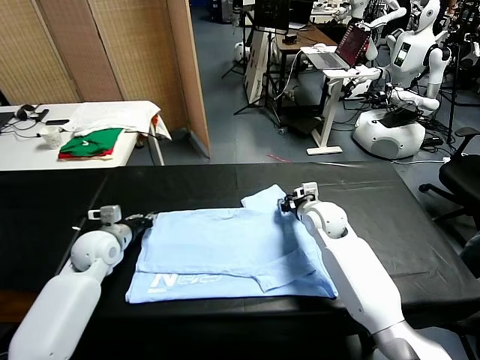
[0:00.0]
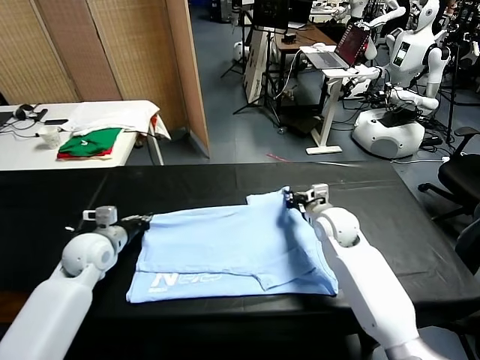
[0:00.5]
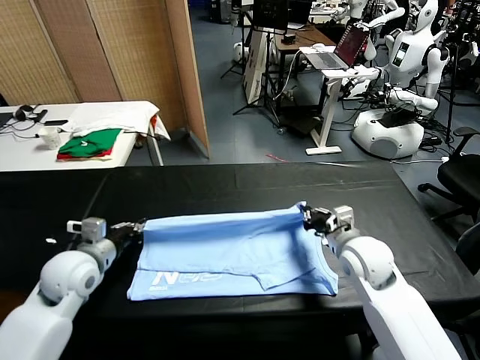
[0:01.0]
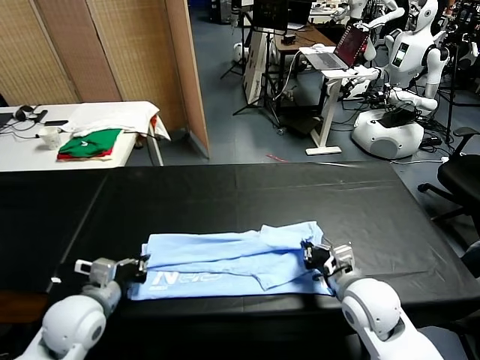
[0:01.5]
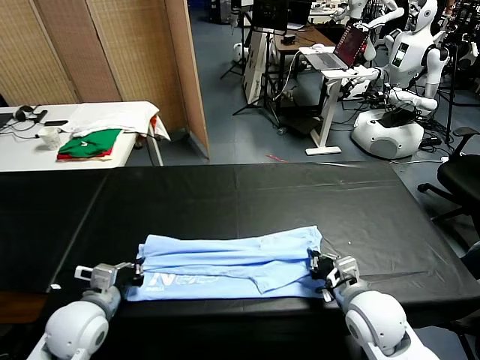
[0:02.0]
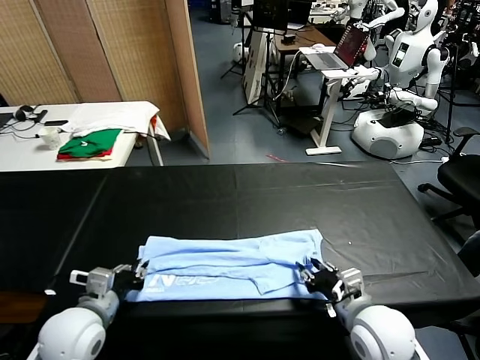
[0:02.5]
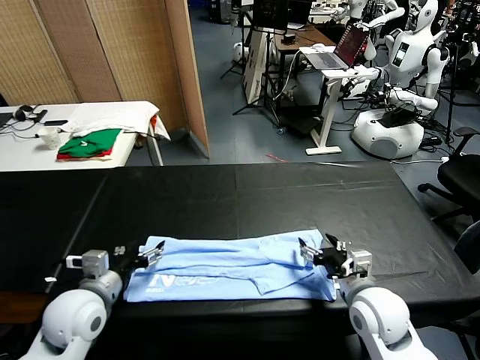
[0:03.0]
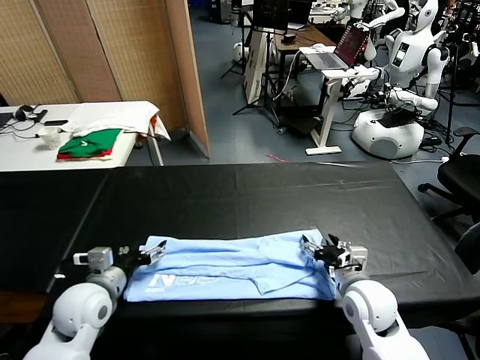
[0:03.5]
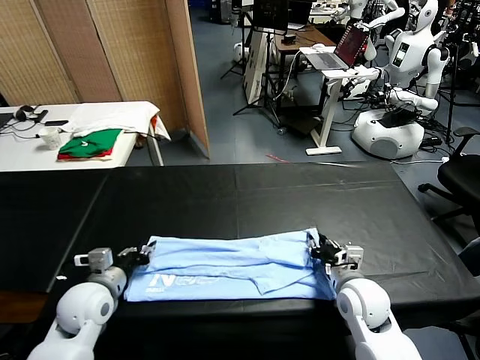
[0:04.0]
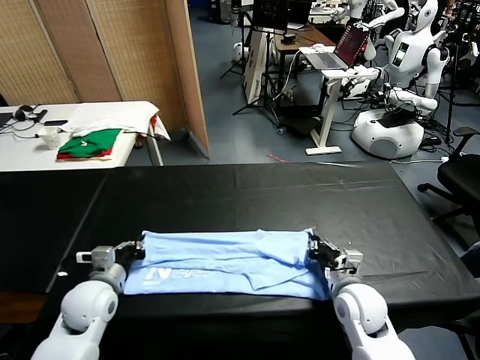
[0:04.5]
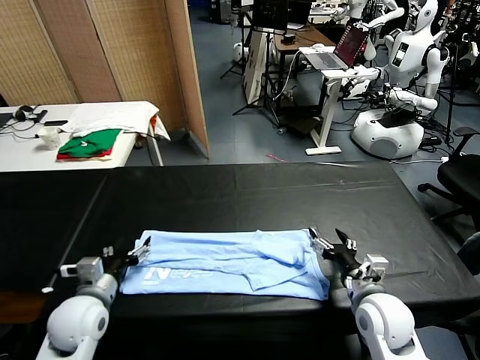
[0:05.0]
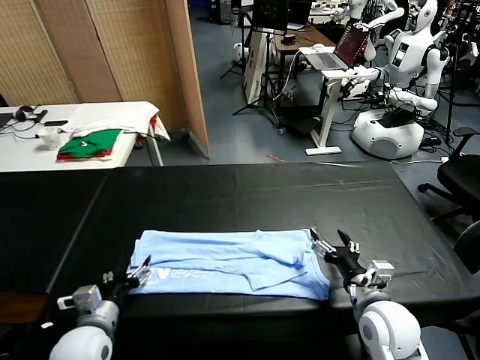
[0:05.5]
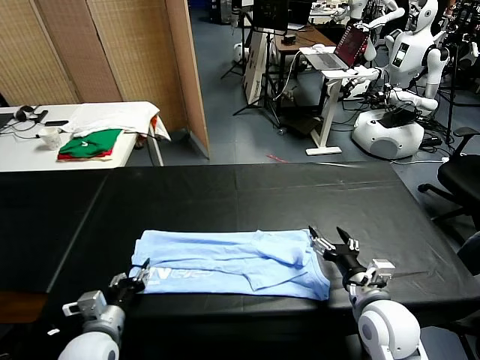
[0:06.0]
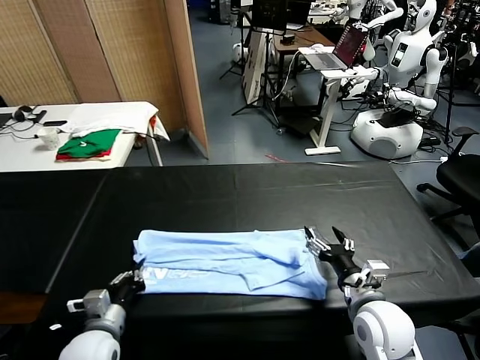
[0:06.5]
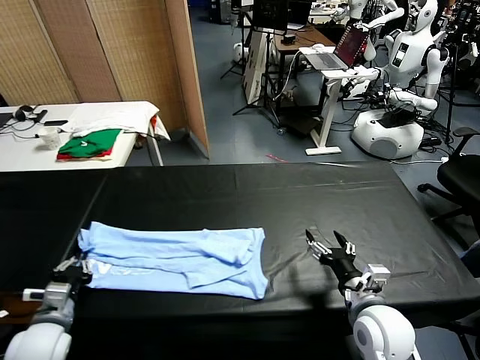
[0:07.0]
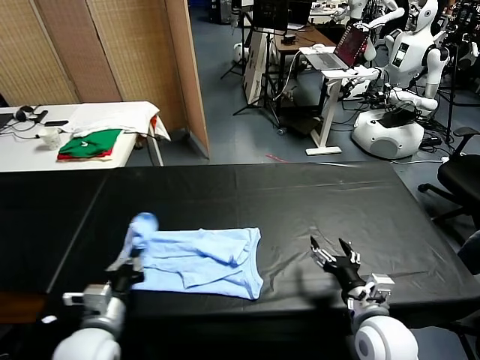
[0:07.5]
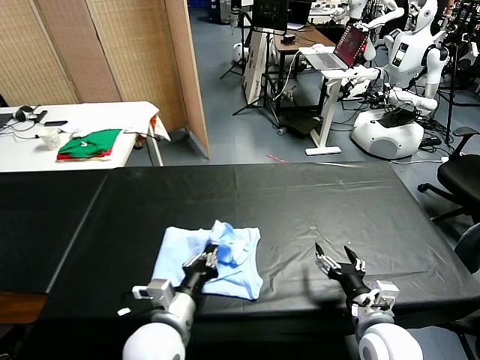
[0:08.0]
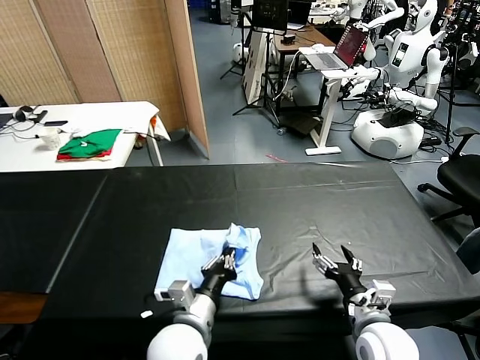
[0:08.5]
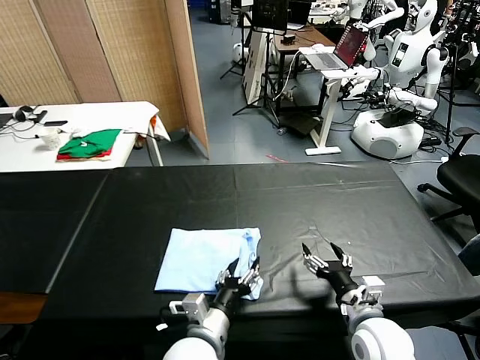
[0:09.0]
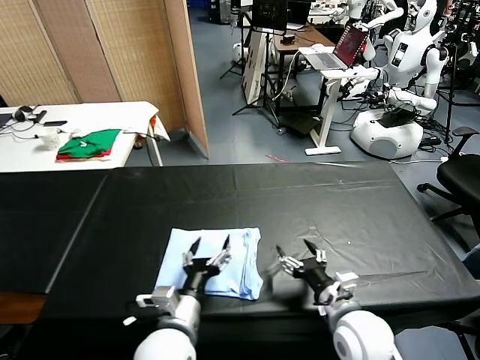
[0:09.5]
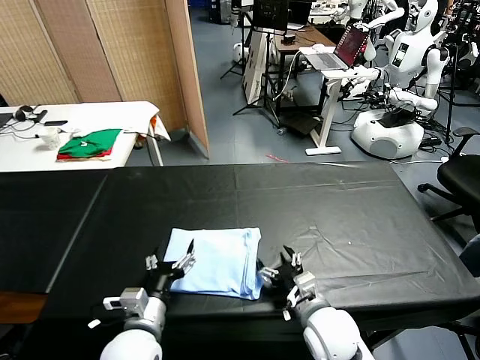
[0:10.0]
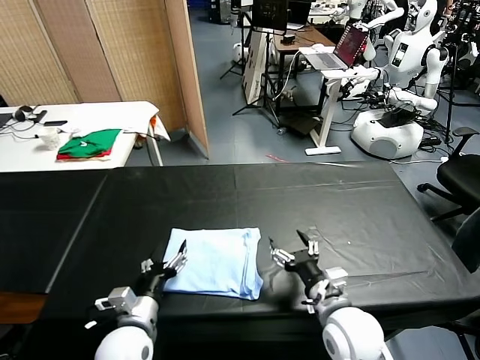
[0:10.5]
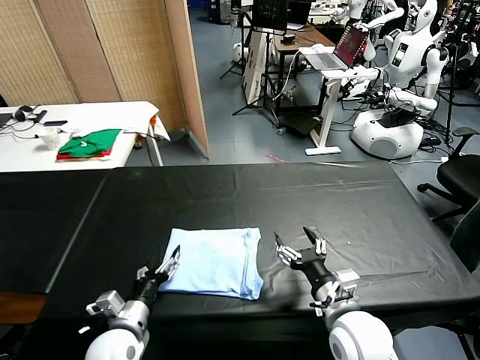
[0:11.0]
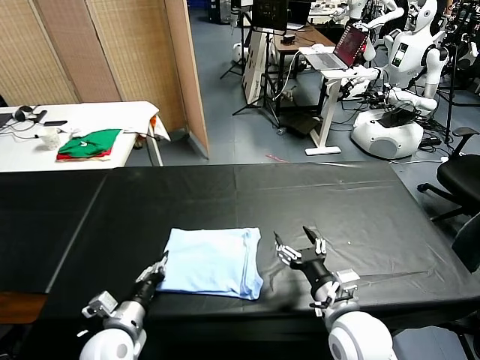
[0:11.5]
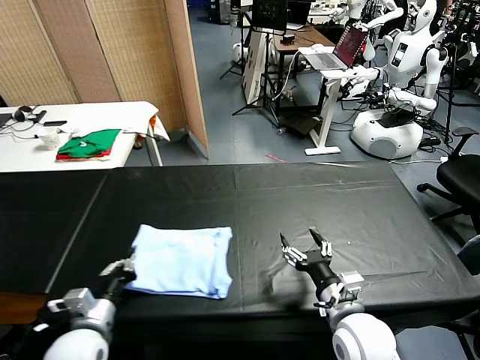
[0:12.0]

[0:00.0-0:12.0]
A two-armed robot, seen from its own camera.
Task of the whole recording: fold and organize the clothes.
Step, 0:00.5 to 0:02.5: use both grippers to drag the upper edge of the fabric backward and fold it over the lower edge.
Step, 0:03.0 to 0:06.0: use the left gripper to clamp the left edge of the fabric.
Step, 0:06.5 to 0:09.5: use the left gripper to drag the left edge of the fabric to the left and folds it over the right edge.
0:00.0 to 0:02.0: Both grippers move backward, approximately 20 cm.
0:02.0 to 0:04.0: The left gripper opens, then closes once more. The right gripper is displaced forward by about 5 cm, and opens, then closes again.
0:04.0 to 0:06.0: Both grippers travel together backward, approximately 5 cm. The right gripper opens its fingers, while the left gripper opens and closes again.
0:06.0 to 0:08.0: The left gripper moves to the right, about 15 cm, and closes its fingers.
0:08.0 to 0:10.0: The right gripper goes approximately 10 cm to the left. Meanwhile the left gripper changes place by some 5 cm, and opens.
0:10.0 to 0:12.0: The right gripper ends up roughly 5 cm from where it was; the left gripper goes approximately 10 cm to the left, and closes its fingers.

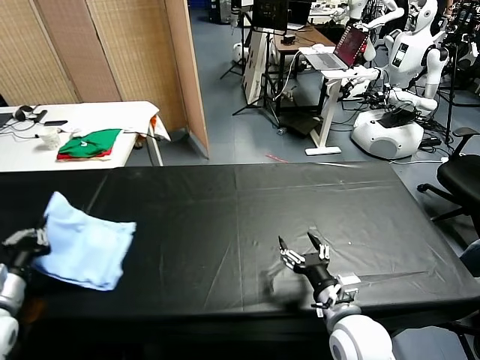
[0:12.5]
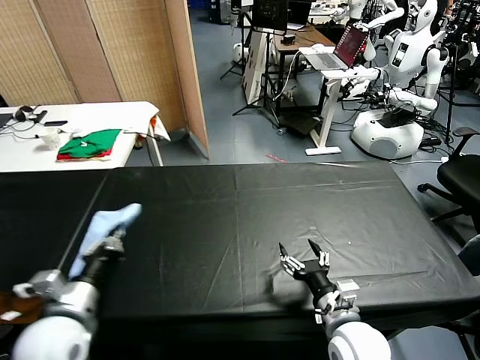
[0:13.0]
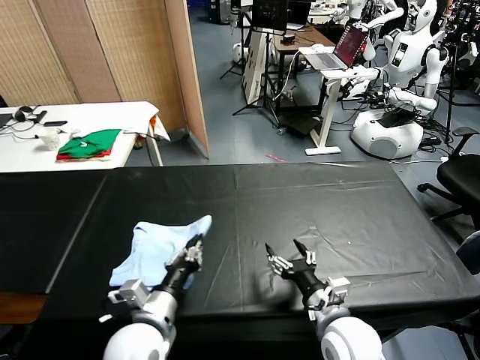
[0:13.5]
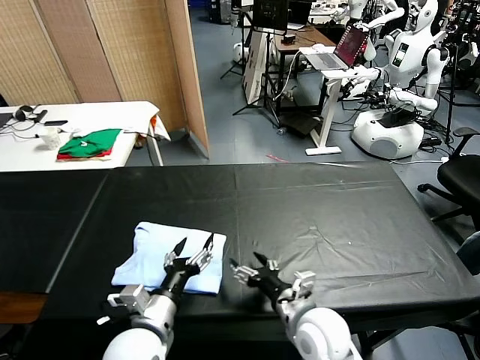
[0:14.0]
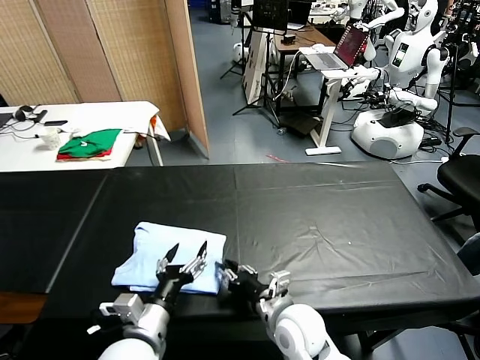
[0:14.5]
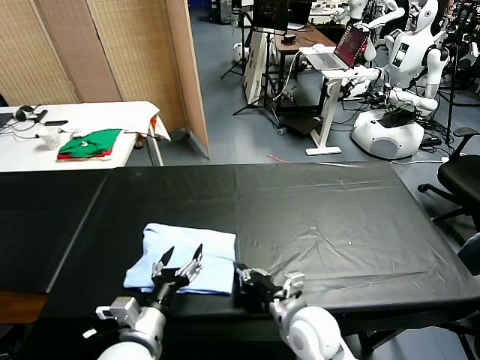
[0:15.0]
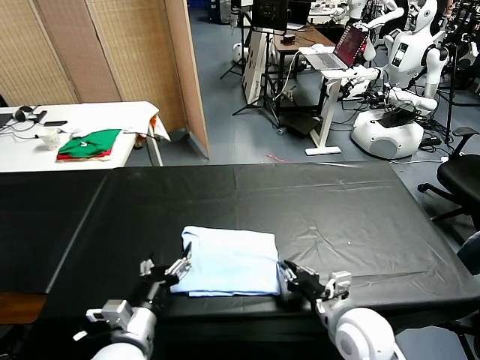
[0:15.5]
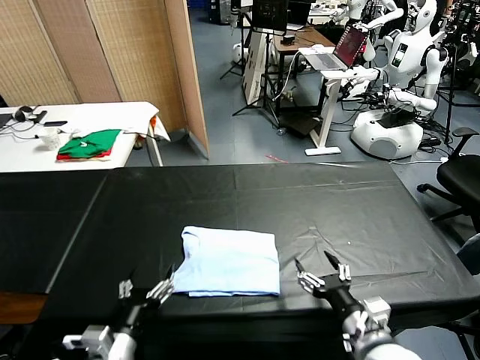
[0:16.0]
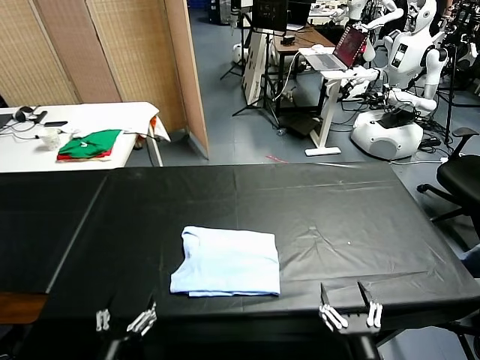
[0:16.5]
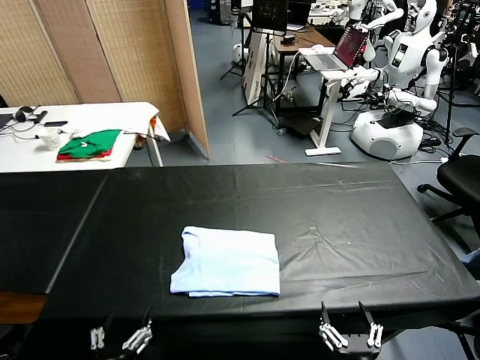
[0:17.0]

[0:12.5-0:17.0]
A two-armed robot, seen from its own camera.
Task of the whole recording: fold and organize the clothes.
Step, 0:14.0 to 0:15.5: Drag the clothes to the center of the table.
0:12.5 to 0:14.5: The right gripper goes approximately 10 cm to the left, and closes. The left gripper travels to the right by roughly 25 cm, and opens its fingers.
0:14.5 to 0:17.0: The right gripper goes some 25 cm backward and to the right, and opens its fingers; the left gripper heads backward and to the left, covering about 15 cm.

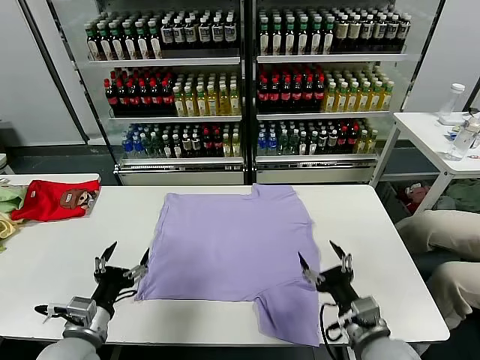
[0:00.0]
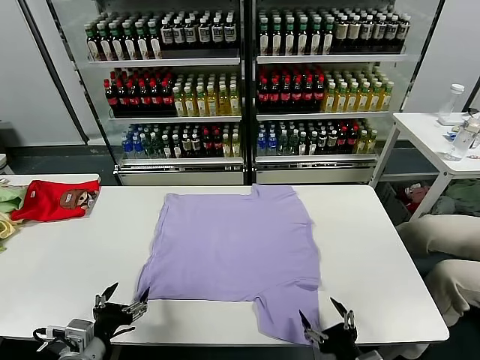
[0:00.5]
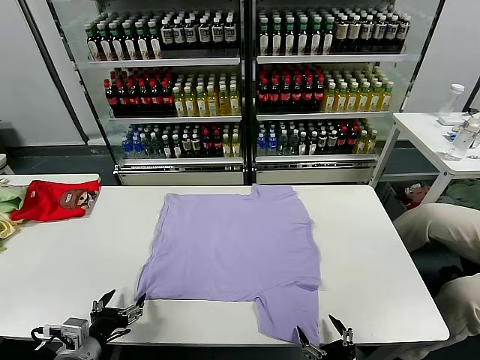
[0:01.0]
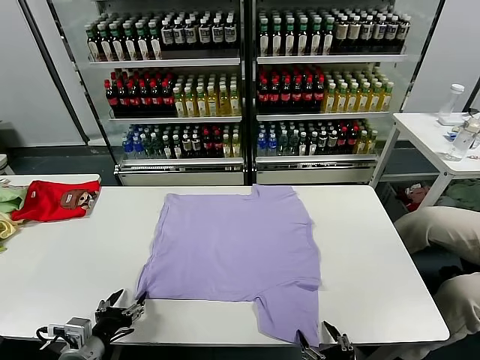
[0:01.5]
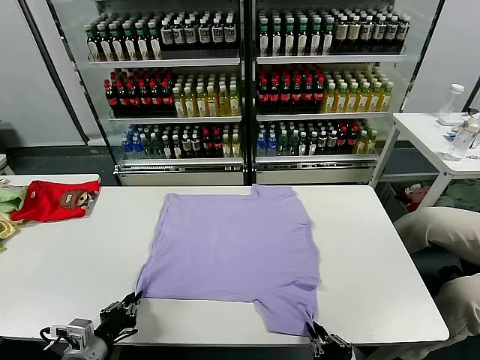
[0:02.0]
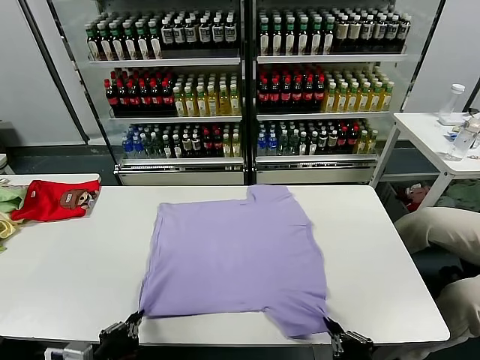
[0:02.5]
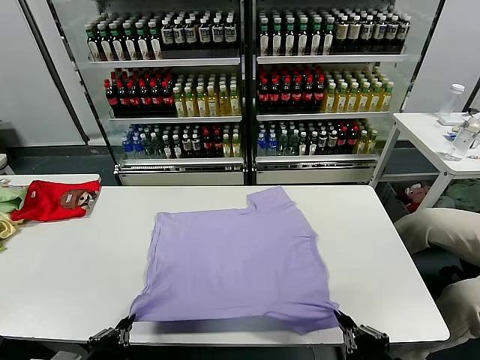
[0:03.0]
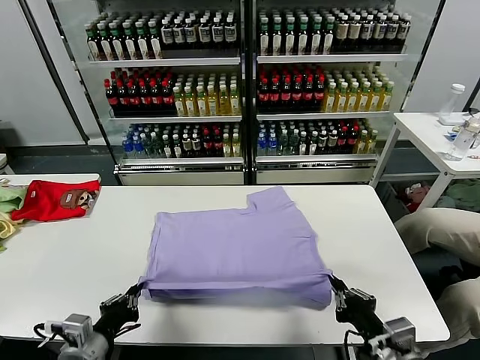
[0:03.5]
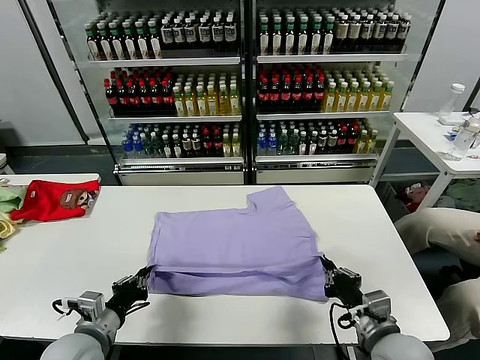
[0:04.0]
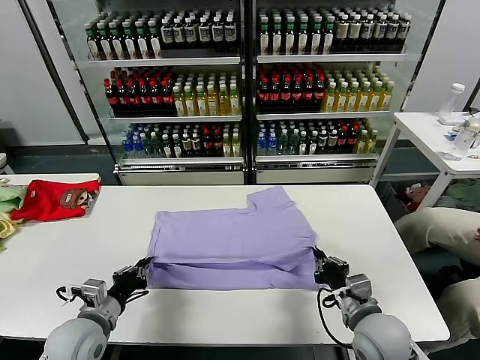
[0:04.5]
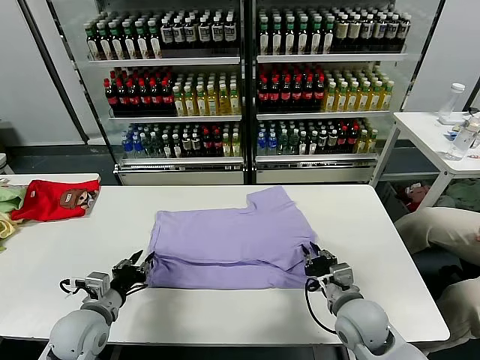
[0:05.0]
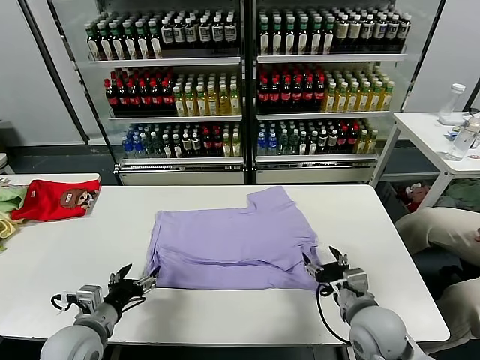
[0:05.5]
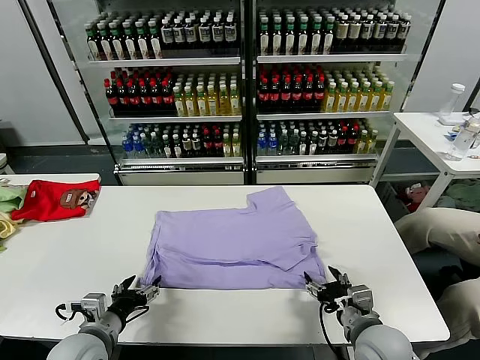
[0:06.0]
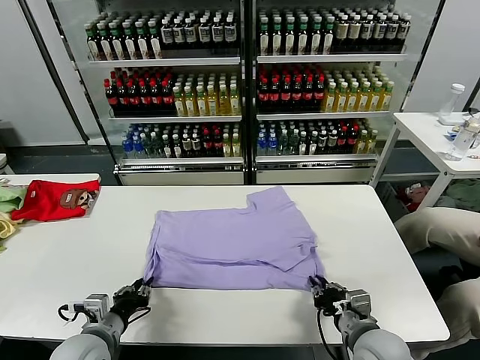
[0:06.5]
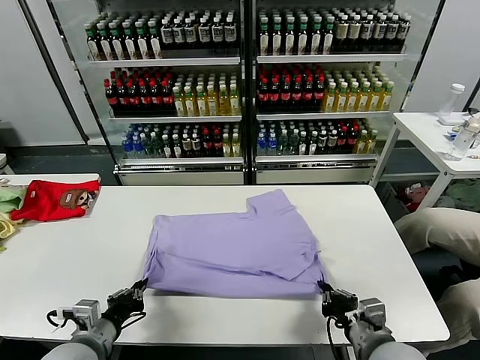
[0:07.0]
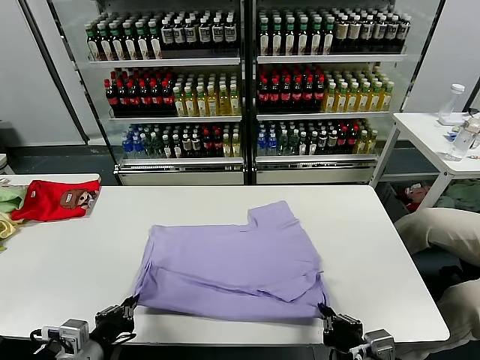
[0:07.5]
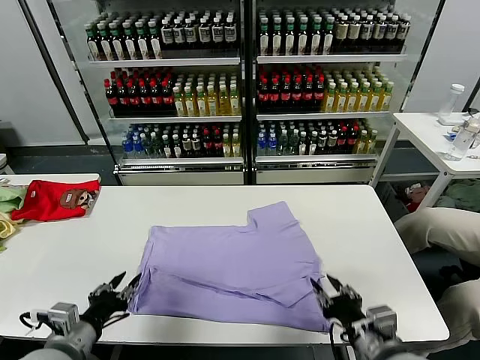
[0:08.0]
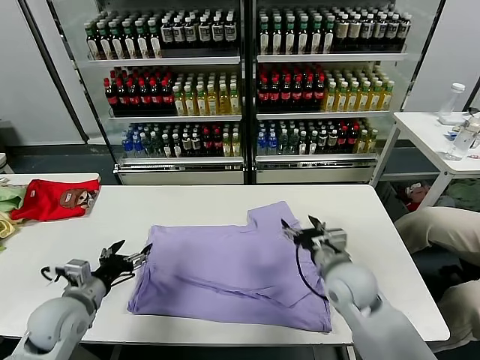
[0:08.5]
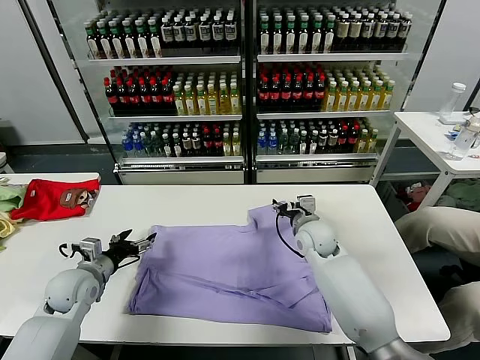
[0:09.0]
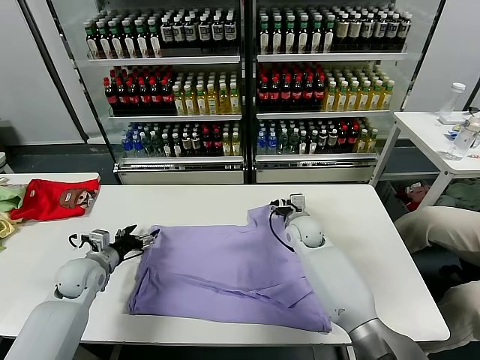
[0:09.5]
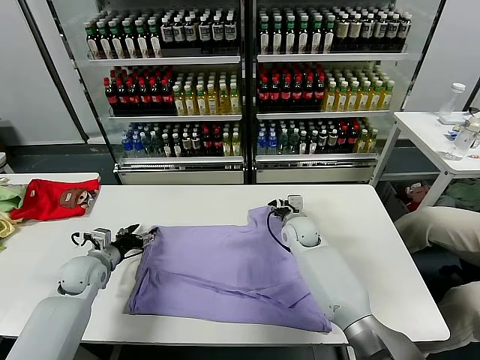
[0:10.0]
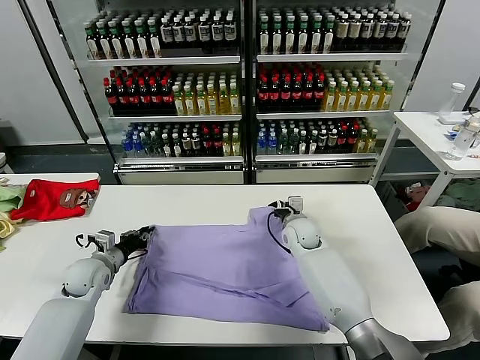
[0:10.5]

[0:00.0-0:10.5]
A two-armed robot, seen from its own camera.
Task of the whole recording: fold and organize the clothes.
Step, 0:00.0 to 0:02.0: use both grippers simultaneously to clamp the lower edge of the clothing fabric.
Step, 0:02.5 to 0:05.0: use both grippers to drag the lower edge of the fabric forward and fold it over the upper edge.
Step, 0:05.5 to 0:08.0: Drag the clothes downward with both gripper.
0:02.0 to 0:04.0: The right gripper is displaced forward by about 10 cm.
0:04.0 to 0:06.5: The left gripper opens and closes again. The right gripper goes forward and returns, about 10 cm each way, and opens, then closes once more.
0:06.5 to 0:08.5: The left gripper heads forward and to the left, covering roughly 10 cm, and opens up; the right gripper is displaced forward by roughly 15 cm, and opens its fingers.
0:08.5 to 0:10.5: Both grippers travel together forward and downward, roughly 15 cm. The right gripper closes up. Meanwhile the left gripper closes up.
